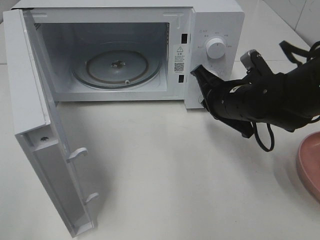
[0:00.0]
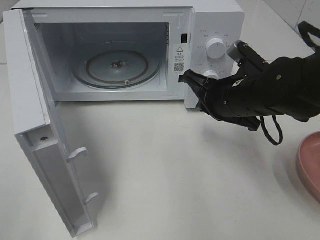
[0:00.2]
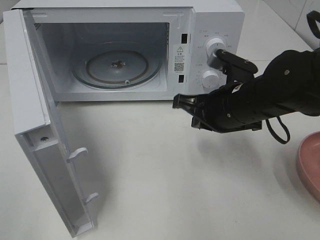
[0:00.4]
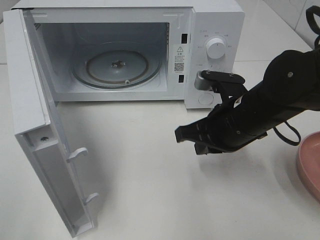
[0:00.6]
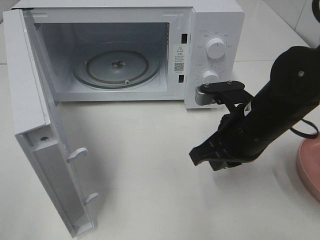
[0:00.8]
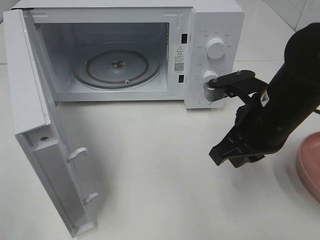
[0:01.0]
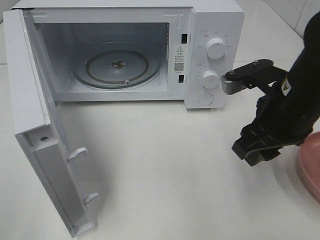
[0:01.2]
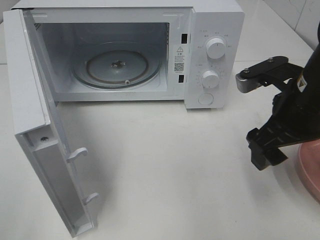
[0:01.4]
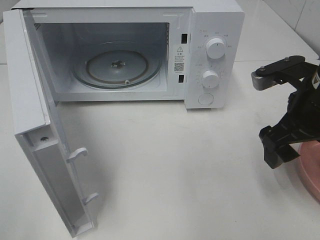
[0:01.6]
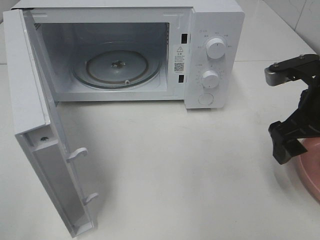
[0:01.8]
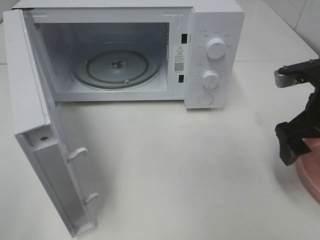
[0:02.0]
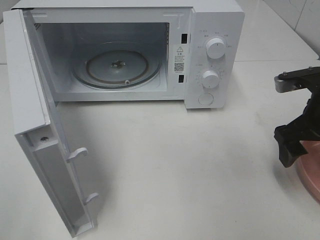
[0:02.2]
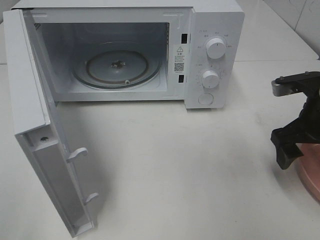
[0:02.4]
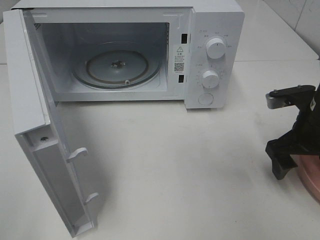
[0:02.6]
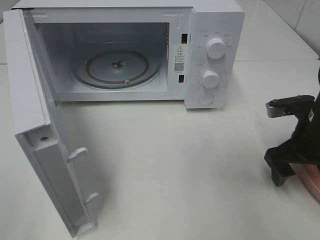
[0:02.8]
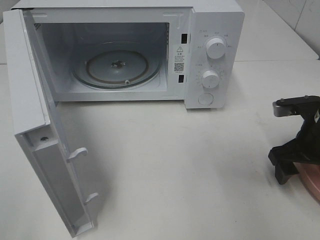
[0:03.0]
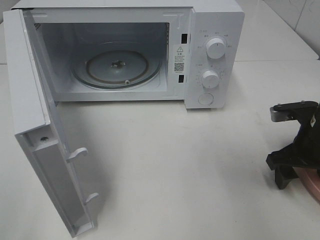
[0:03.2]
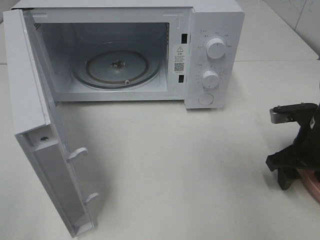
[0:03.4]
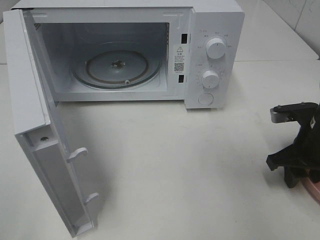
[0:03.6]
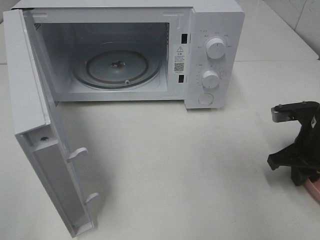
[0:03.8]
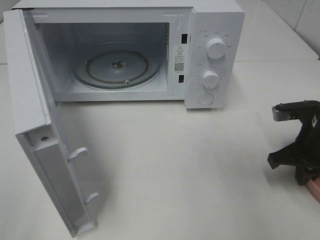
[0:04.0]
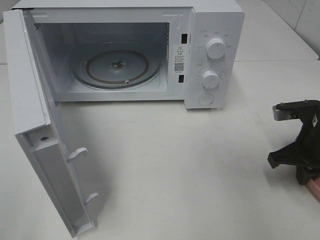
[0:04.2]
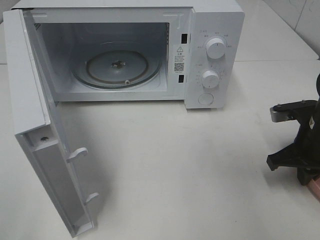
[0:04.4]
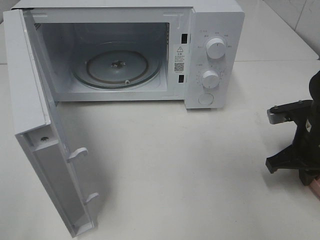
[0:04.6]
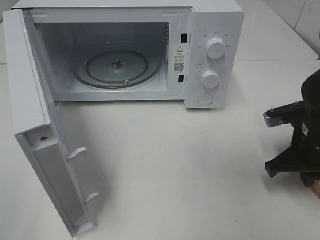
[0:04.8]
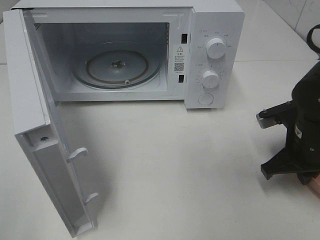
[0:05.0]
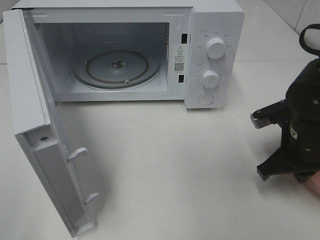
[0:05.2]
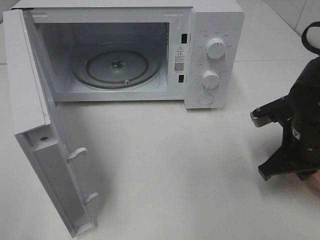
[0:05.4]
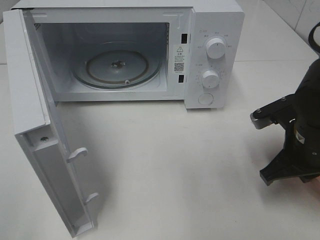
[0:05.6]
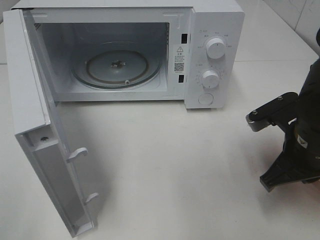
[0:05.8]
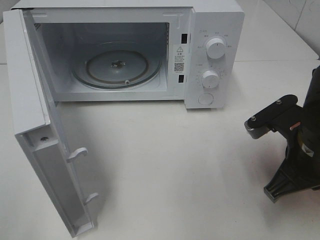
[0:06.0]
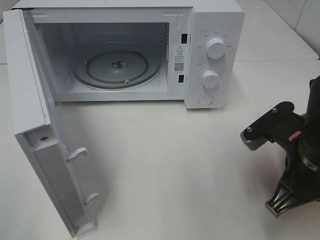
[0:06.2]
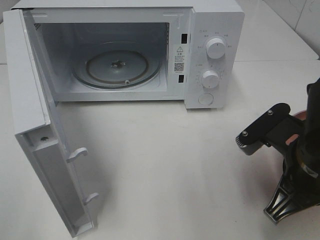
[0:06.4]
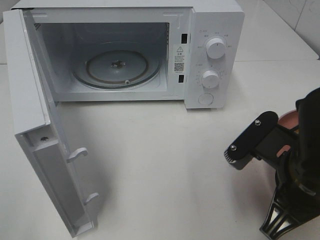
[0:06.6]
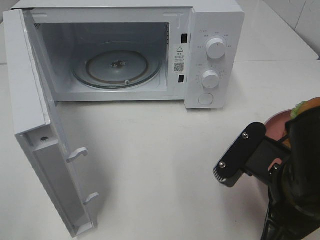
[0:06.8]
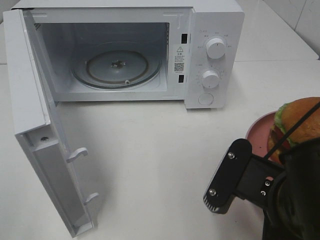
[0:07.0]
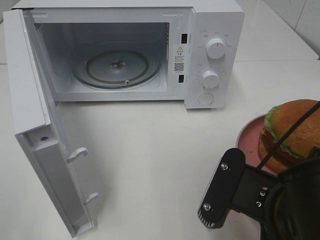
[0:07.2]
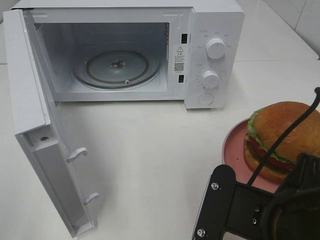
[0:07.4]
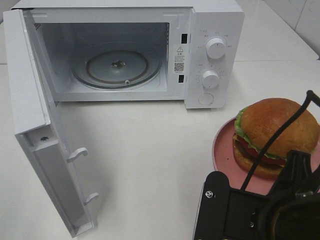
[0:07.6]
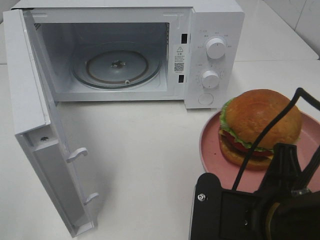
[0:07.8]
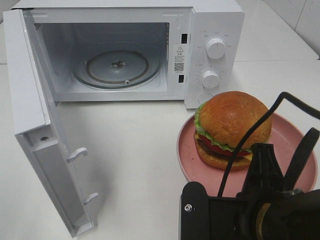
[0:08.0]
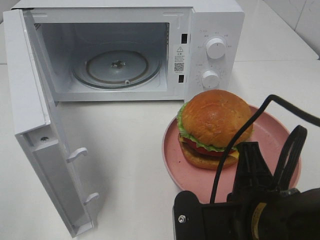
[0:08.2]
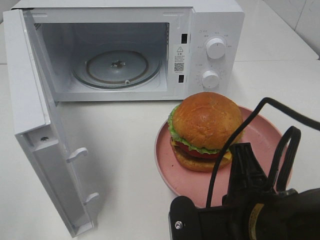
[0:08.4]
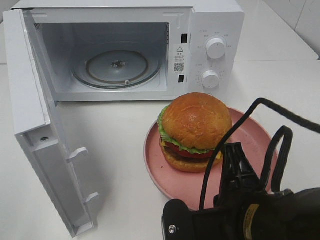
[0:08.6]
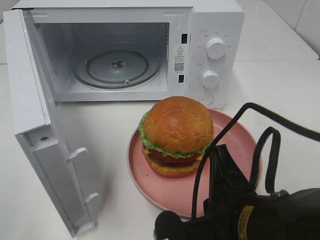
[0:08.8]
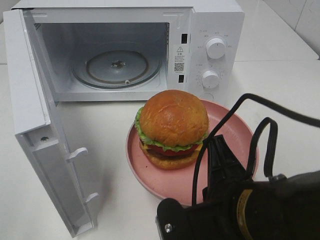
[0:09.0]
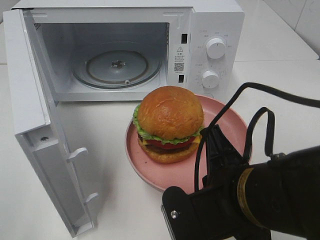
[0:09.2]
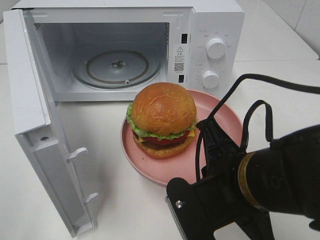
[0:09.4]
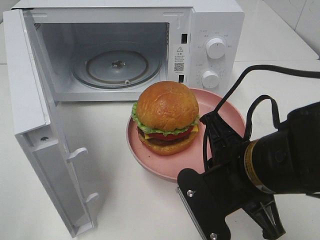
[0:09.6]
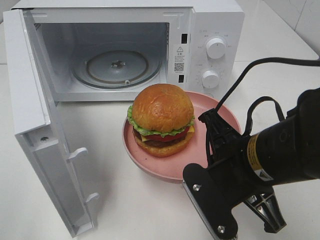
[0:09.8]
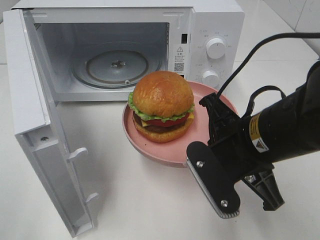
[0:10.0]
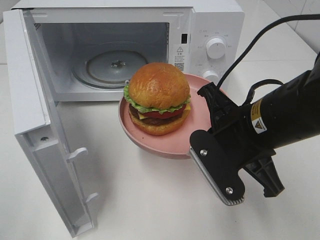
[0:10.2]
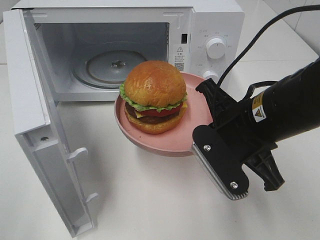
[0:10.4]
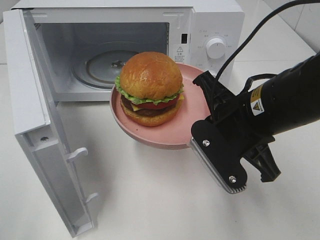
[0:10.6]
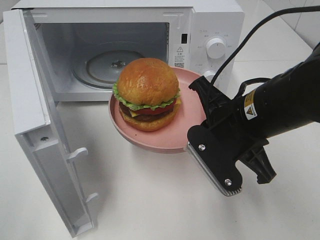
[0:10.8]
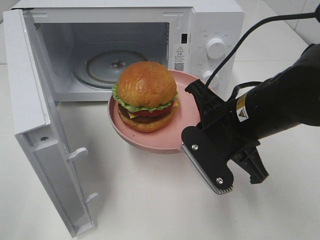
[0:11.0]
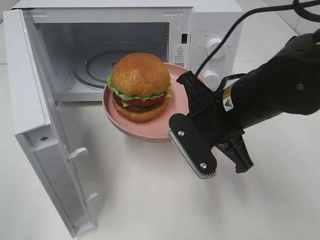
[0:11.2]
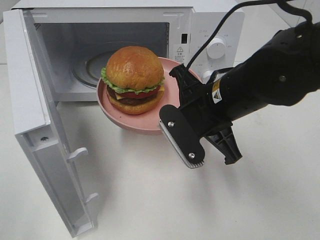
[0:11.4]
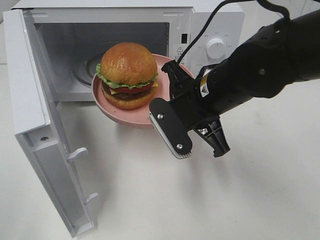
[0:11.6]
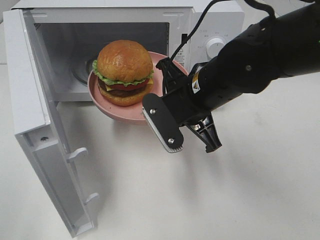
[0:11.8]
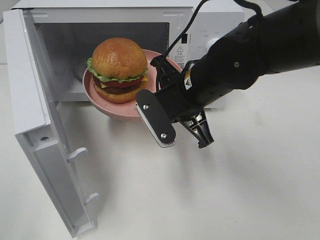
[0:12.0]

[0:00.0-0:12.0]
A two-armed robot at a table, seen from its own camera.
Task of the whole recording: Heat the burger.
Step, 0:00.0 to 0:04.2: Right hand: grab the plate with the hamburger.
0:00.0 to 0:01.6: The right gripper shifts some 10 cm to the right, upward and backward, and opens.
0:01.6 to 0:03.0: The right gripper goes about 10 cm downward and to the right.
0:03.0 to 0:04.4: The right gripper closes up.
0:04.4 to 0:06.0: The right gripper travels backward and to the left by approximately 10 cm.
0:06.0 to 0:07.6: The right gripper travels backward and to the left by some 15 cm.
0:09.0 to 0:10.4: The right gripper heads forward, covering about 10 cm.
0:10.4 to 0:12.0: The right gripper travels forward and to the left by about 10 cm.

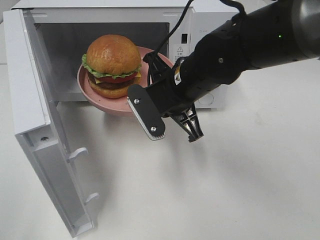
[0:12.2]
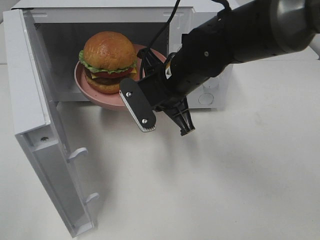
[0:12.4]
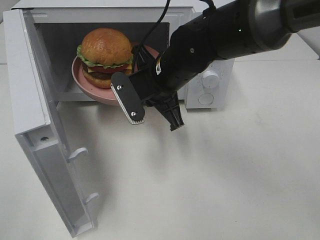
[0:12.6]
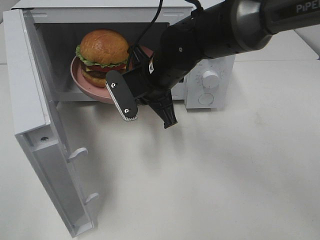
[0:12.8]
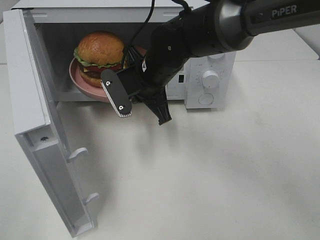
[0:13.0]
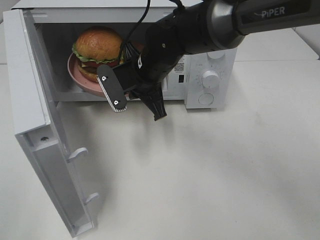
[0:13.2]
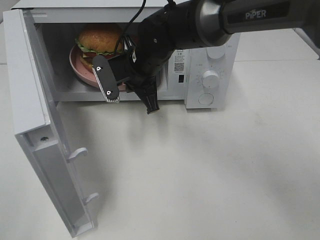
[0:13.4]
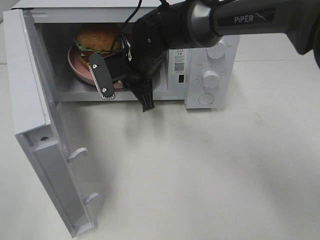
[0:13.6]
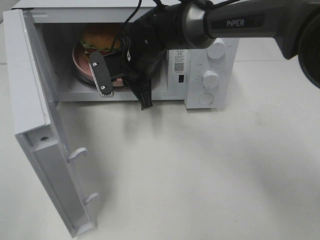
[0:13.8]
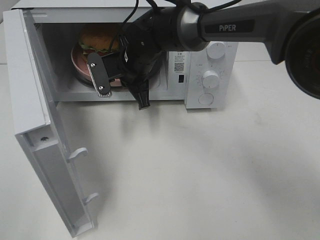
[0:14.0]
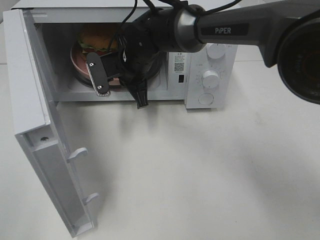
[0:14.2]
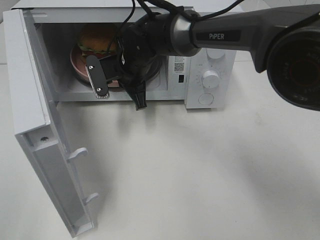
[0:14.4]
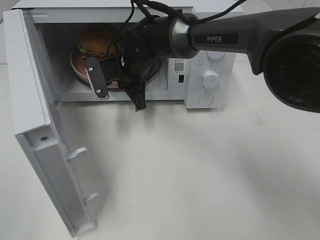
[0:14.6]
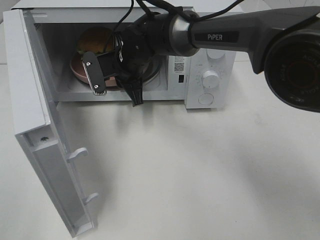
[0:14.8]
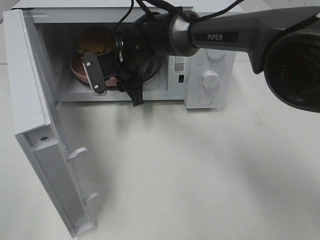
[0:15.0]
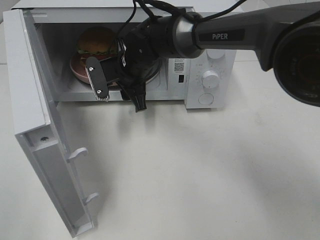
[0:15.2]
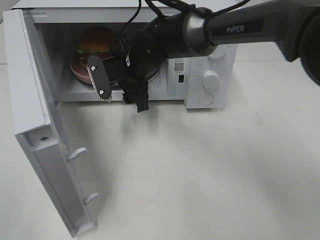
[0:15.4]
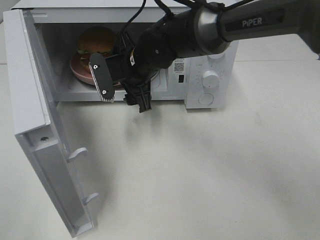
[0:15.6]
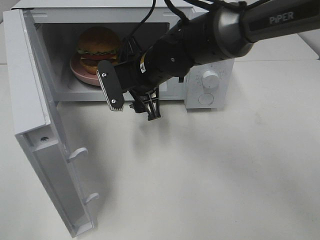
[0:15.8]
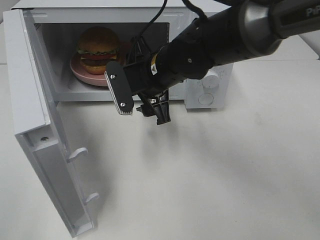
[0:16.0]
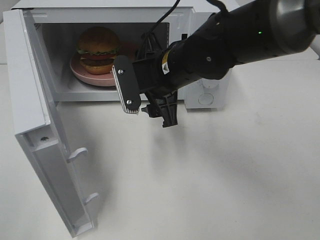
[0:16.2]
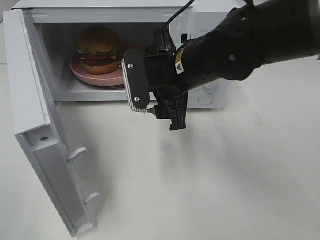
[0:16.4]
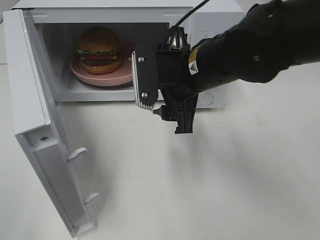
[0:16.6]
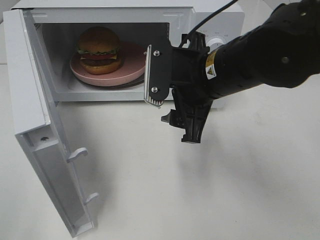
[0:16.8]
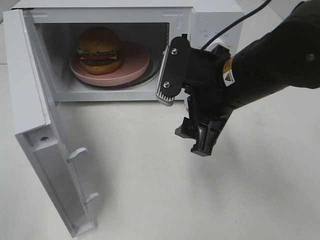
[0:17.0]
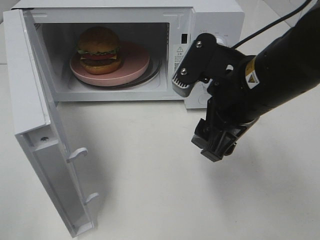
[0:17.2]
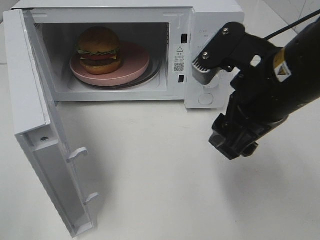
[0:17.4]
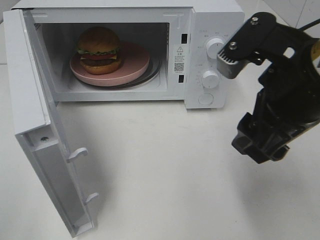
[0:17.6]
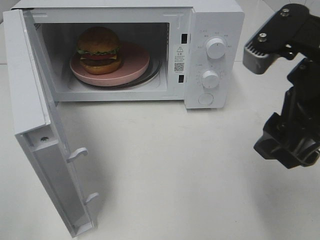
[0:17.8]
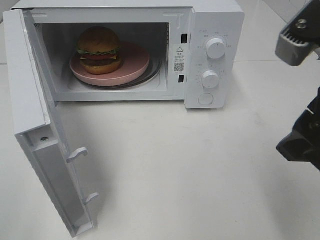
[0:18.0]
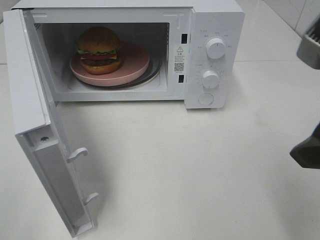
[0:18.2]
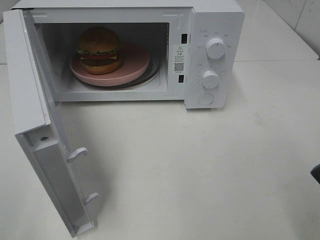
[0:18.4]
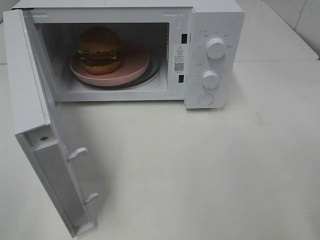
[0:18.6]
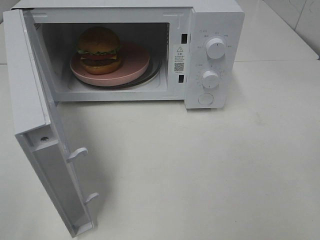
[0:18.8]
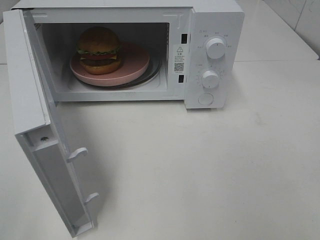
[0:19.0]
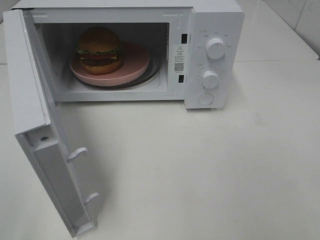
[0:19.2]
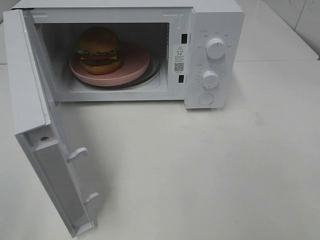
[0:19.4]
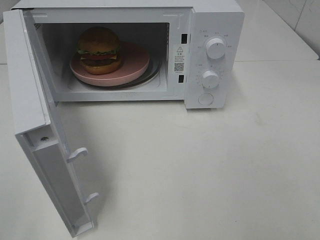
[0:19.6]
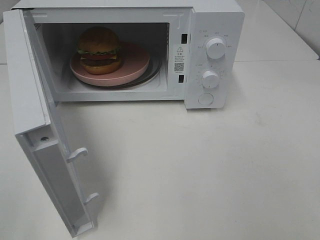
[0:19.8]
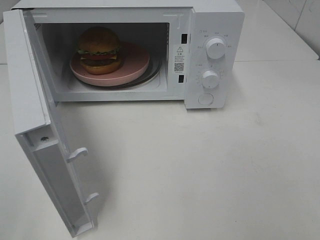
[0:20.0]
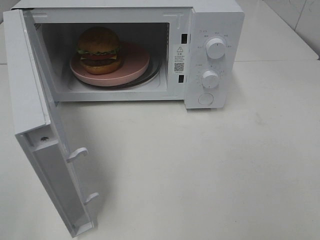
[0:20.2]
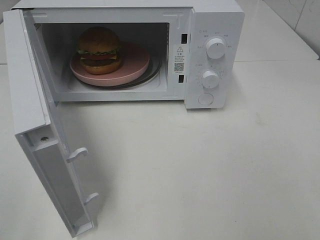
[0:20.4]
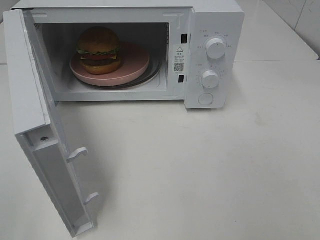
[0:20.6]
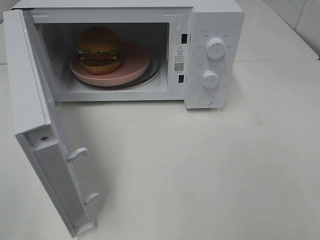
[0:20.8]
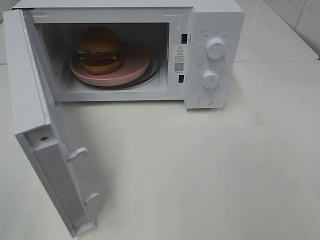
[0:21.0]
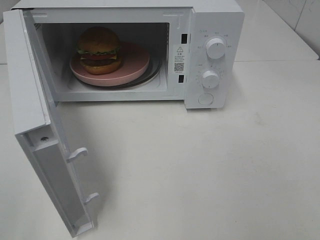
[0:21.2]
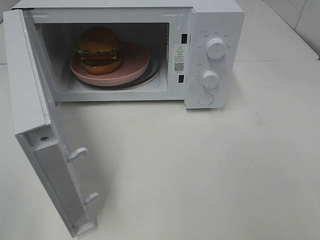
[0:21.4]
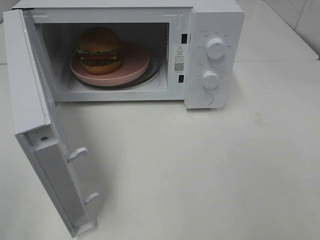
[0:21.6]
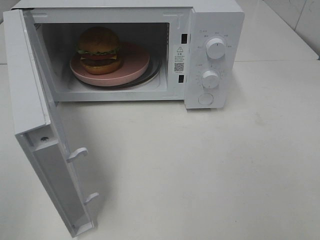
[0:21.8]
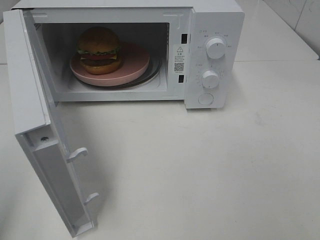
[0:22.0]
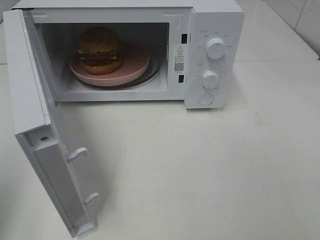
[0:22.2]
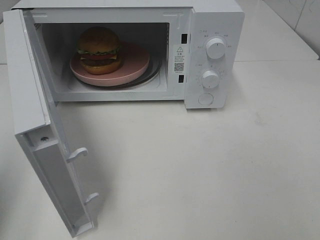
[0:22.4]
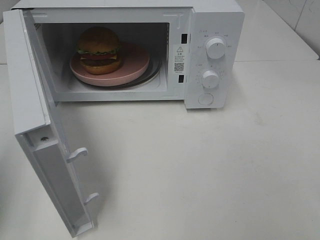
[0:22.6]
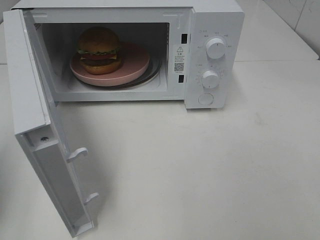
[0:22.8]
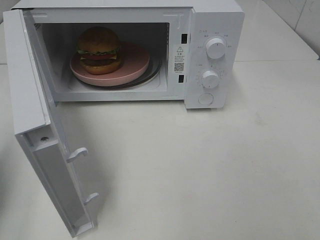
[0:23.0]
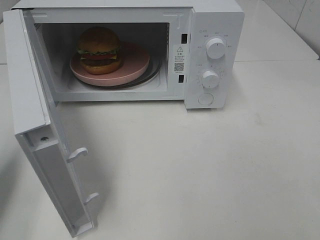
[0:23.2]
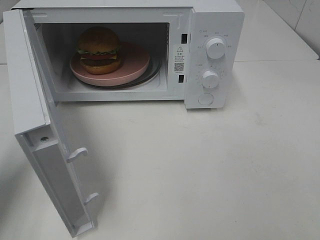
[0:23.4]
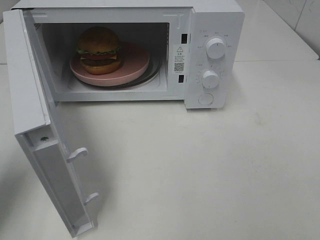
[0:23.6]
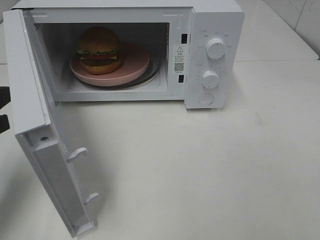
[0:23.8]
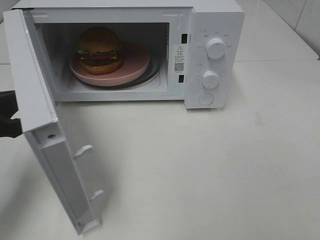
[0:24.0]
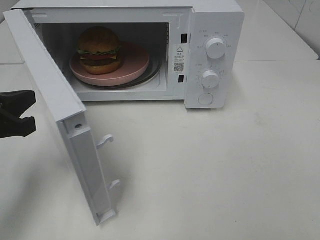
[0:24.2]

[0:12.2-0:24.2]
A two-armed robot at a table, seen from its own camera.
Task of the whole recording: Heat the burger.
Step, 0:12.2 to 0:14.8: Right hand: place the plate in the microwave.
0:12.2 to 0:13.8: The right gripper goes roughly 15 cm forward and to the left.
0:13.8 to 0:15.2: The right gripper opens its fingers.
0:15.2 to 0:16.6: The right gripper moves backward, to the right and upward, about 20 cm.
0:16.6 to 0:18.2: The right gripper travels backward, to the right and upward by about 20 cm.
0:18.2 to 0:19.8: The right gripper travels backward and to the right by about 15 cm.
0:19.8 to 0:21.2: Both grippers stay about where they are.
0:21.2 to 0:22.6: The left gripper is displaced forward by approximately 15 cm, and closes its fingers.
0:22.6 to 0:24.2: The left gripper shifts approximately 15 cm downward, to the right and forward.
